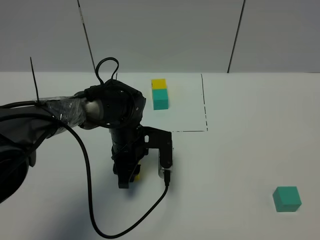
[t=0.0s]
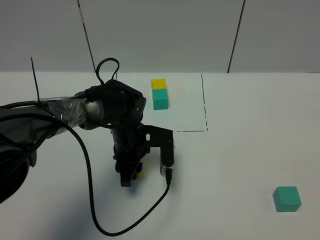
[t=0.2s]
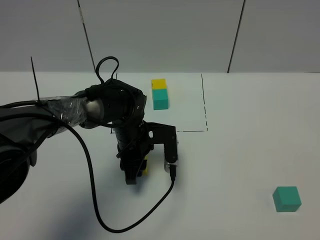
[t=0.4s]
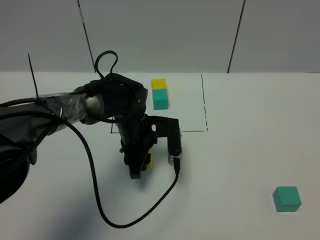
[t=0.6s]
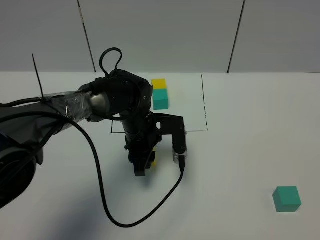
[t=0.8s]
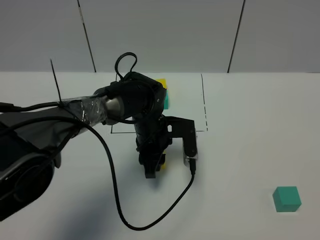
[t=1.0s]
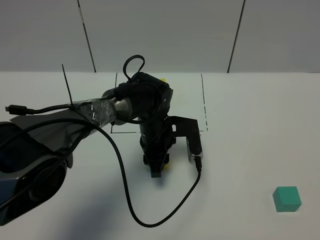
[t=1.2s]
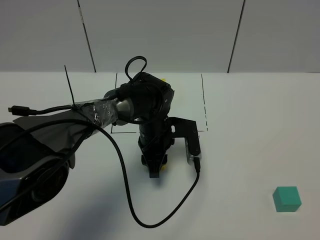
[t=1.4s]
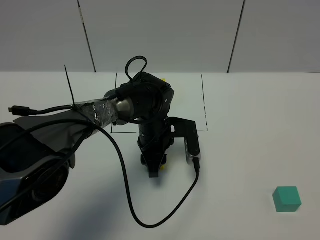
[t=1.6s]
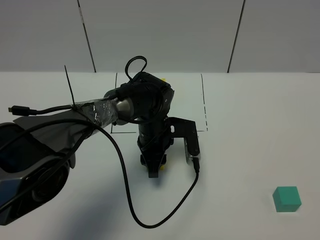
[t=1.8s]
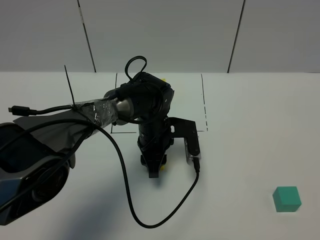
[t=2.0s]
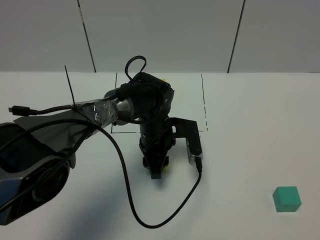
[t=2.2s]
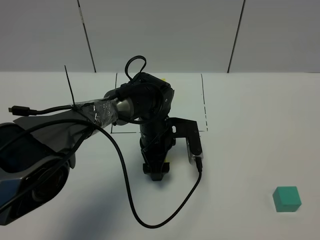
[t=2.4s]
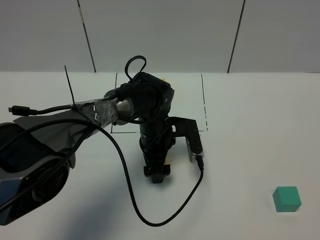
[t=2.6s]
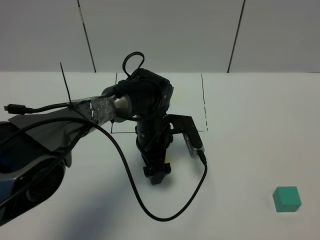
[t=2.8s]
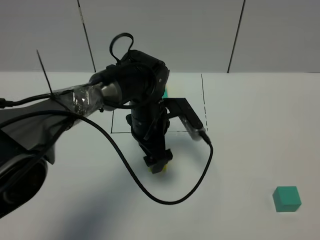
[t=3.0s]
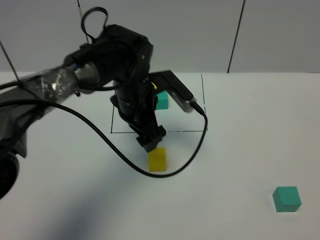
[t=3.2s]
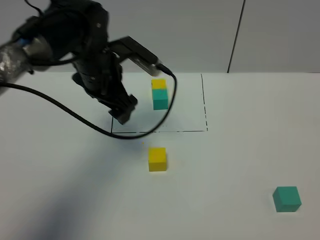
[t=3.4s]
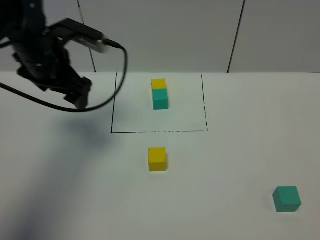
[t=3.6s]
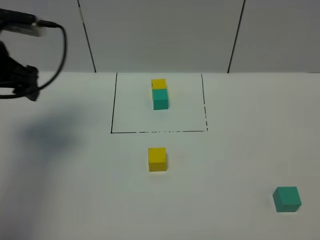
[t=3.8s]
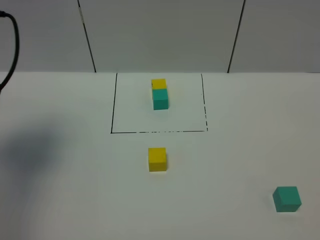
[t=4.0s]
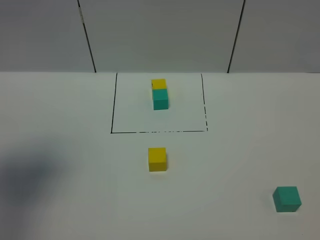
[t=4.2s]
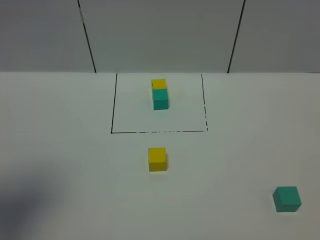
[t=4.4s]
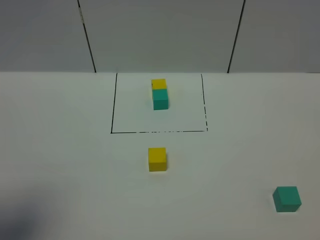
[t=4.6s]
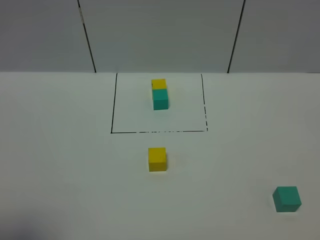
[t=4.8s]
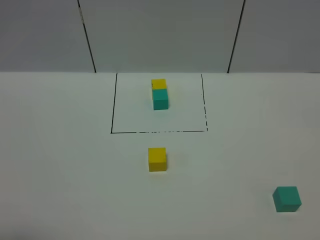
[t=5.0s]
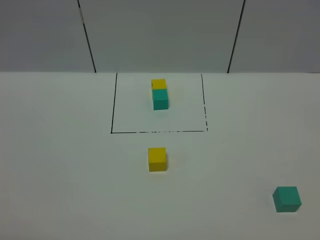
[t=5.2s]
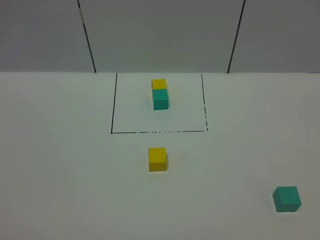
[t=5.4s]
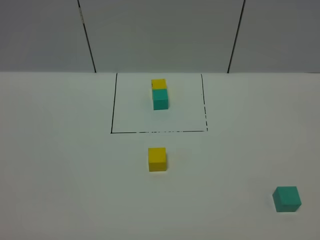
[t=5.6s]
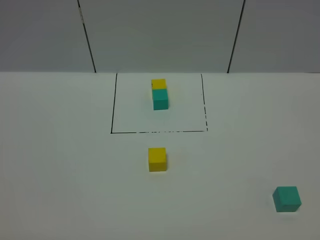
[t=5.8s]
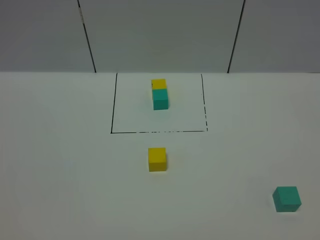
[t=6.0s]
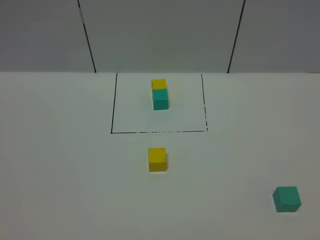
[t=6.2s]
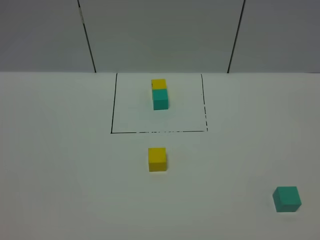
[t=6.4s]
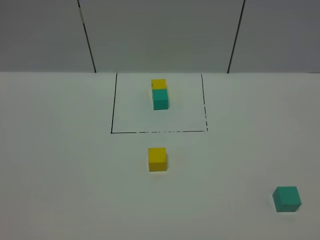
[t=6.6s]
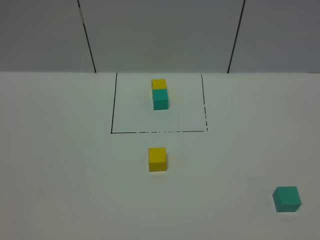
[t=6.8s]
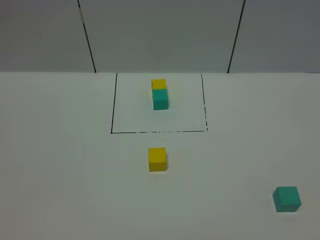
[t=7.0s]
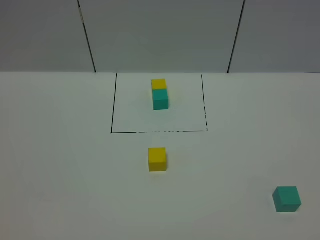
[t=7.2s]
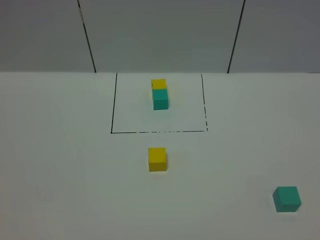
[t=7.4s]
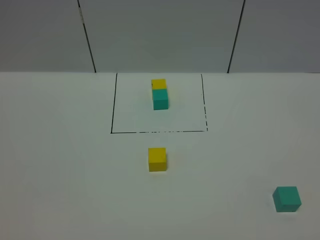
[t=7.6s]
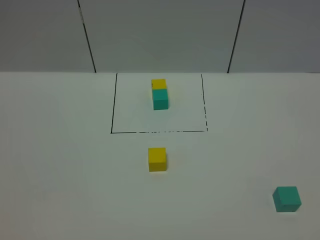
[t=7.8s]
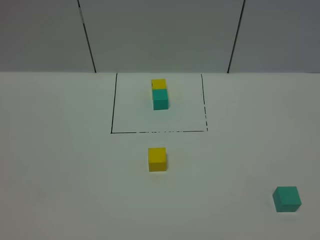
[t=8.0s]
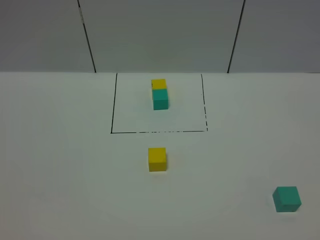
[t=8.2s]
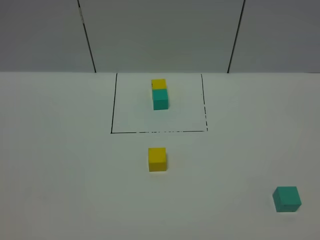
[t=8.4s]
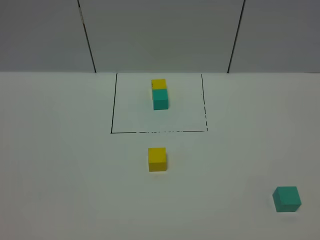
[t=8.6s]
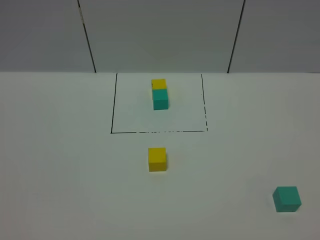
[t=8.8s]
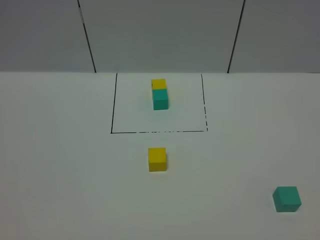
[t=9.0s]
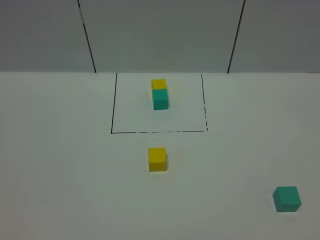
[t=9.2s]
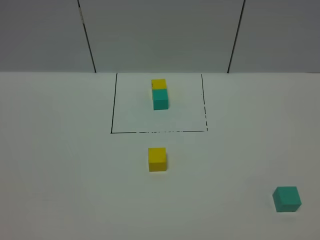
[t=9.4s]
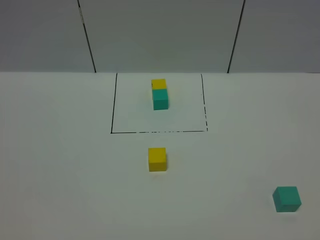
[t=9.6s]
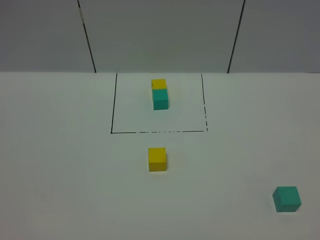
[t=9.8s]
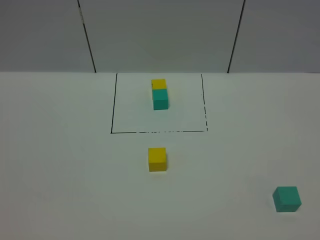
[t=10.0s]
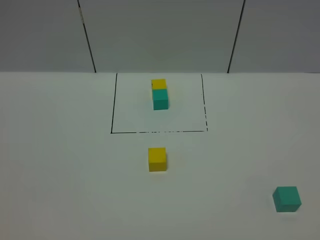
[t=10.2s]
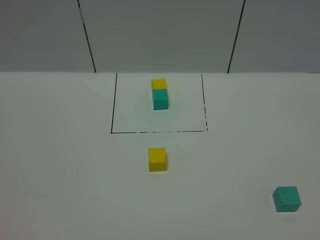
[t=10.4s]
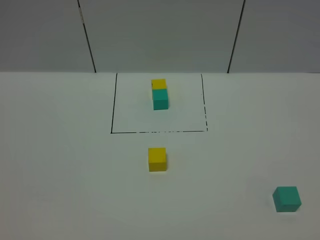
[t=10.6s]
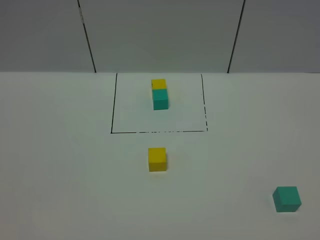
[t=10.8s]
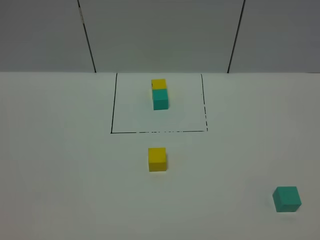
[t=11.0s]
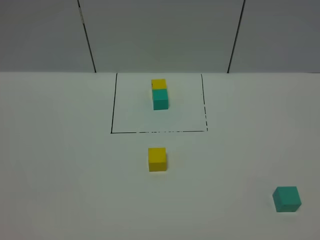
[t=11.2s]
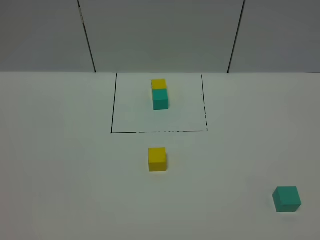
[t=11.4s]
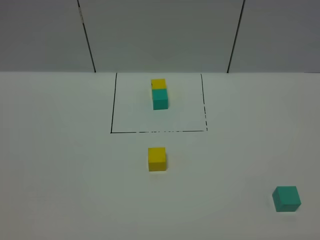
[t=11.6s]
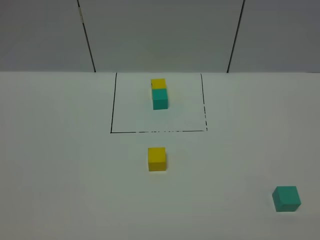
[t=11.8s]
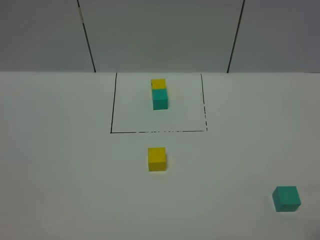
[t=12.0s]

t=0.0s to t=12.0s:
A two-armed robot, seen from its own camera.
Task of the whole recording: According to the building block template in front, assemble the scattered blocks together.
Step, t=0.0s to t=2.8s: Put the yellow cube in the center of the table.
t=0.0s to t=1.6s: The left gripper travels to the right by approximately 5 cm.
t=1.6s to t=3.0s: The left gripper shifts some 5 cm upward, and opens up.
t=3.0s to t=4.4s: The left gripper heads to the left, upward and backward, covering some 40 cm.
t=4.4s to t=6.0s: The left gripper moves backward and downward, some 20 cm.
t=7.6s to t=10.4s: Both grippers stay about where they are.

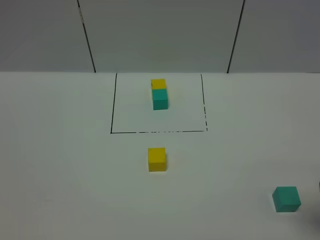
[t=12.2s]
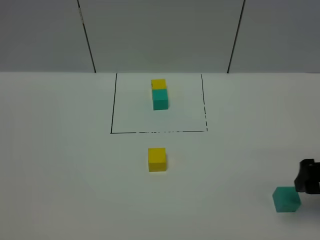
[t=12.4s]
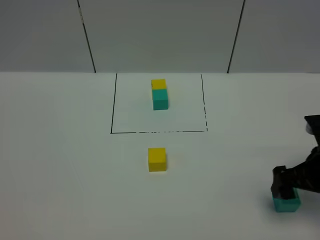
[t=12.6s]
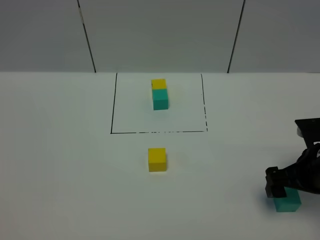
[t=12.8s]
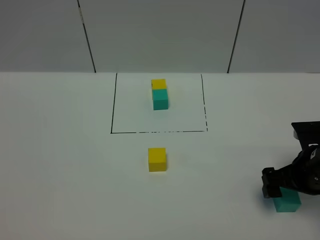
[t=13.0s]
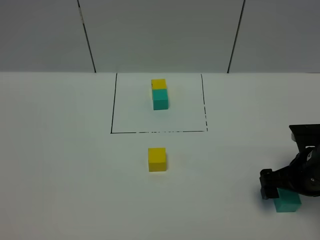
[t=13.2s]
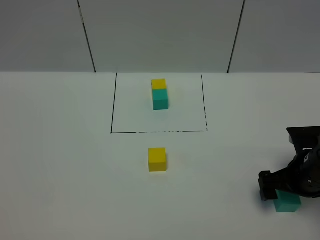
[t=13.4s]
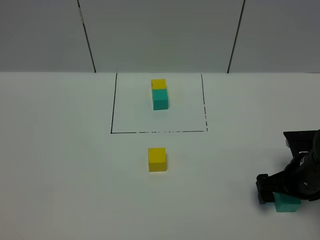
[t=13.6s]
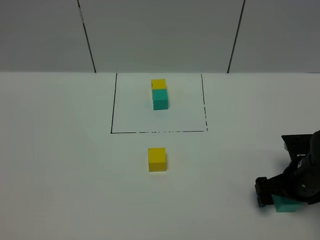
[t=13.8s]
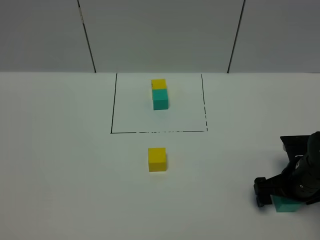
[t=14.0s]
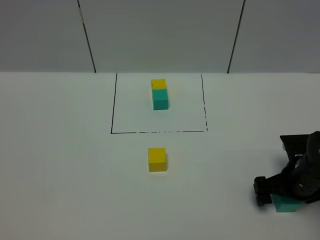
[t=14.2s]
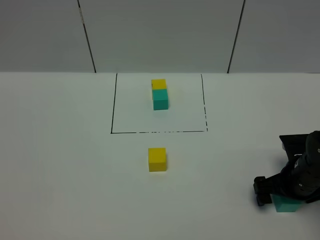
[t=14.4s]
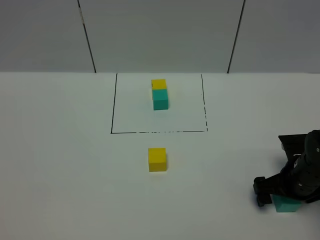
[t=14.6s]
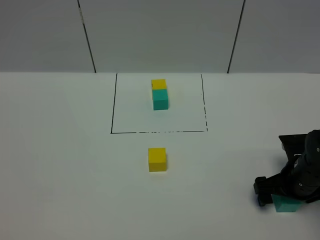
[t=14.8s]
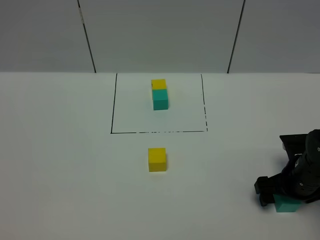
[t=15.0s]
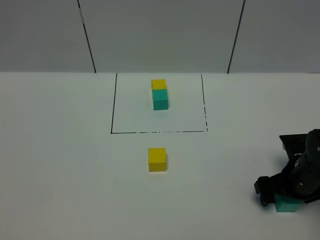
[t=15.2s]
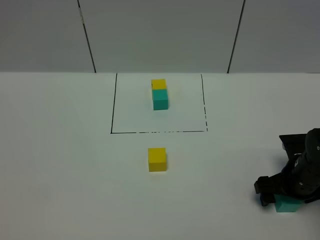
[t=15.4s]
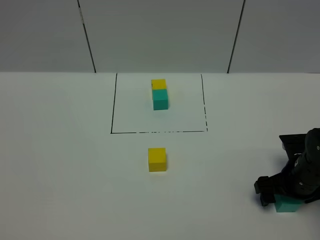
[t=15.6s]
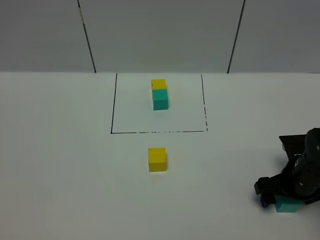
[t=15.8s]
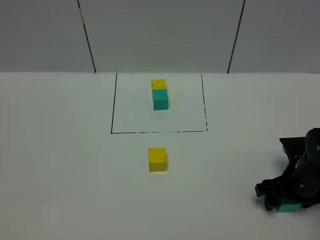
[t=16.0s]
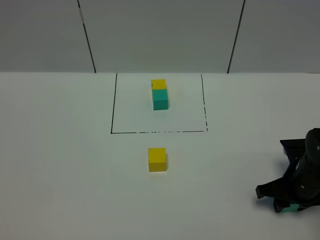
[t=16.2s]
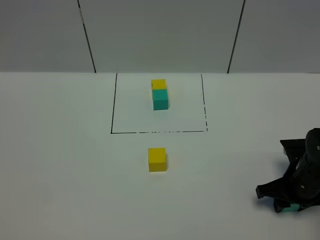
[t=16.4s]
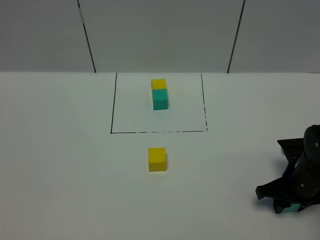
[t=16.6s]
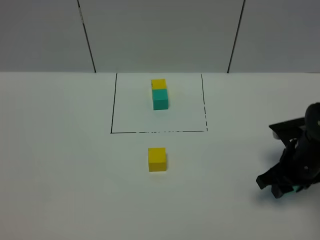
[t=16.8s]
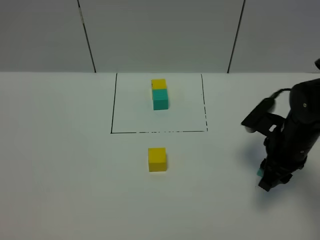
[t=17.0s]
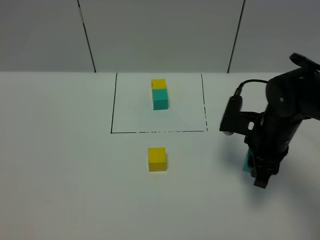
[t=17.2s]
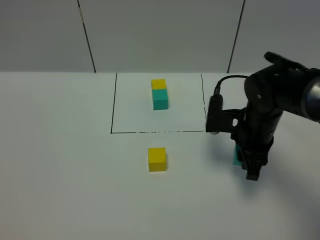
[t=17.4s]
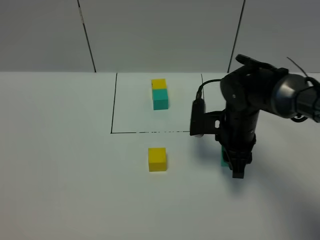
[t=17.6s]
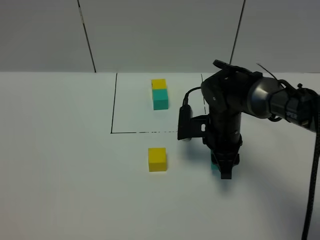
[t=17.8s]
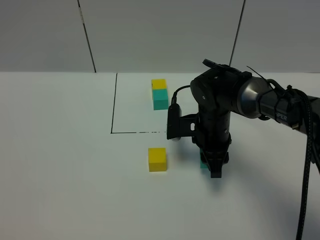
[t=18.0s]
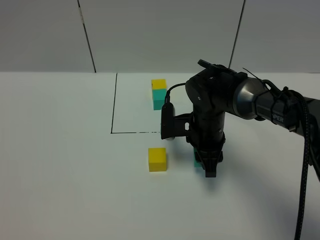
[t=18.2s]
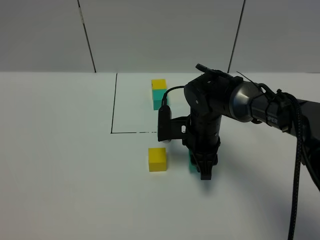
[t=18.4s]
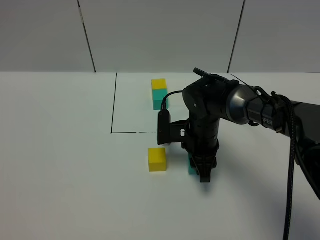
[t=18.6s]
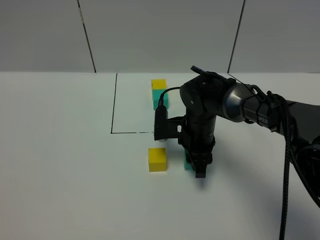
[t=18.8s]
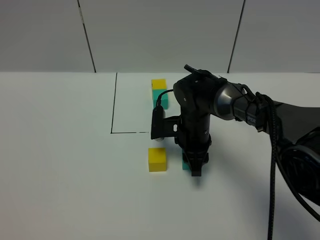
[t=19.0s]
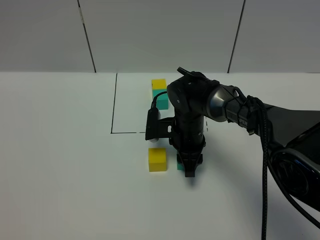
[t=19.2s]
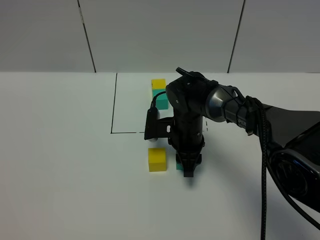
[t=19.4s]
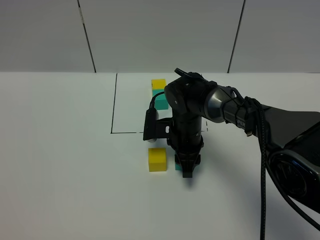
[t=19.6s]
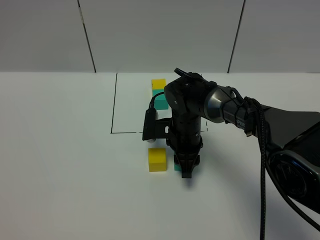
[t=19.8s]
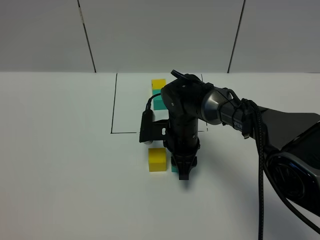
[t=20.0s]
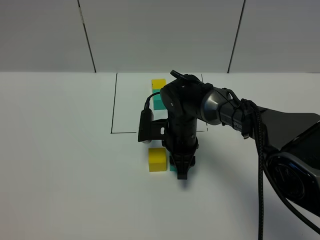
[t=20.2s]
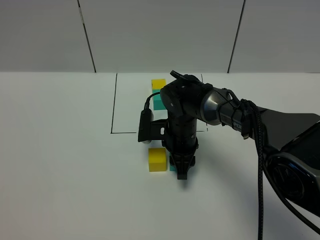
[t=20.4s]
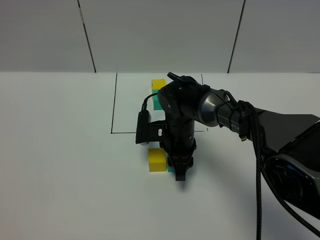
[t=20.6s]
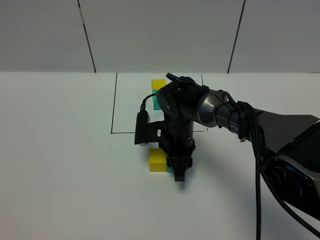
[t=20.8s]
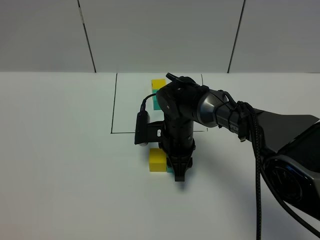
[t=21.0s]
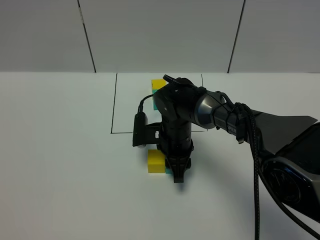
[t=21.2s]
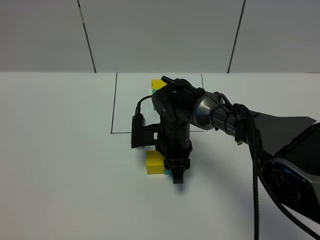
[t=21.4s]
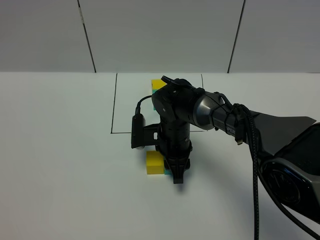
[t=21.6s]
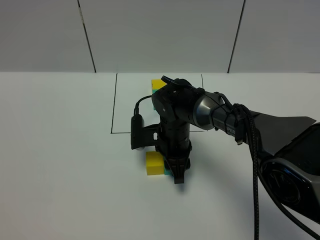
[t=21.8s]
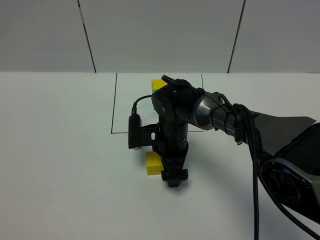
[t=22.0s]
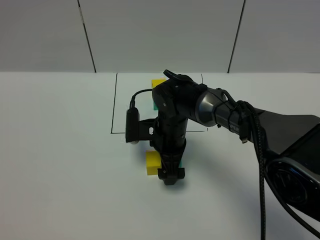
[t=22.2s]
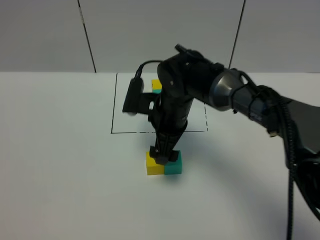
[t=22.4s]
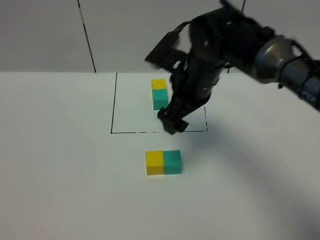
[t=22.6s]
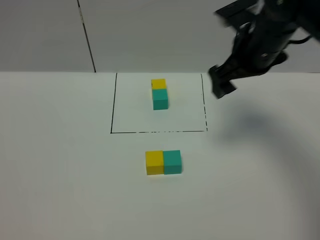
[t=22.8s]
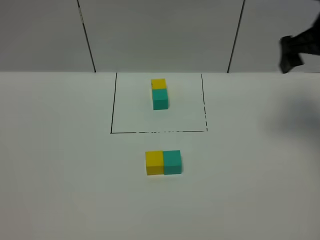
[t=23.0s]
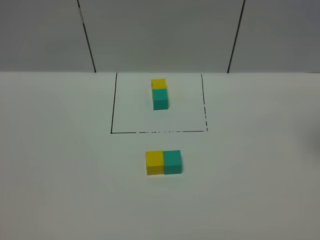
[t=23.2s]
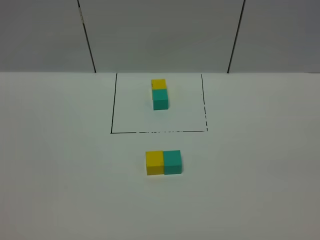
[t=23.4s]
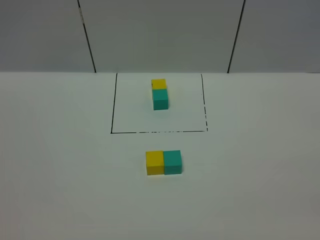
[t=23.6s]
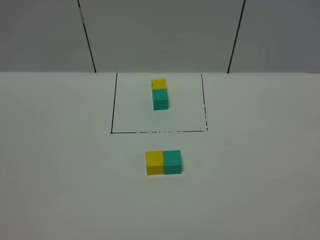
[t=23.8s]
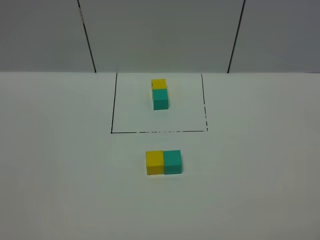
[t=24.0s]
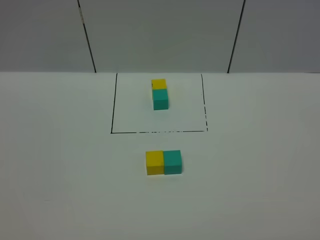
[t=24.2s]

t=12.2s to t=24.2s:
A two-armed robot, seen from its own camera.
Task of the whole recording: According to the building block template in front, assemble the scattered blocks together.
Step, t=12.2s to t=22.0s: Put the green cube on the right of the yellow cube.
t=12.2s to t=13.8s: The right gripper travels downward and forward by approximately 20 cm.
t=15.2s to t=16.6s: The right gripper closes up.
t=16.6s to t=18.2s: The right gripper shifts roughly 20 cm to the left and forward.
t=18.2s to t=19.8s: The right gripper ends up some 5 cm from where it was.
t=19.8s to t=21.2s: The grippers move only a little.
t=21.2s to t=22.6s: The right gripper shifts roughly 15 cm upward, and opens its fingers.
t=22.6s to t=24.2s: The right gripper travels backward and to the right by about 40 cm.
